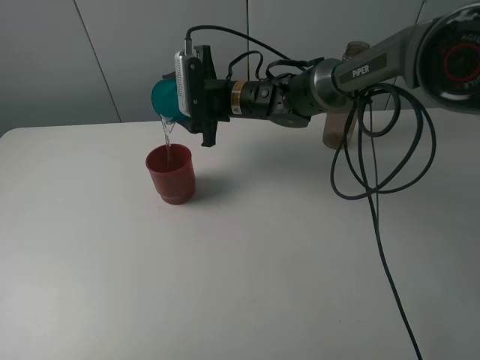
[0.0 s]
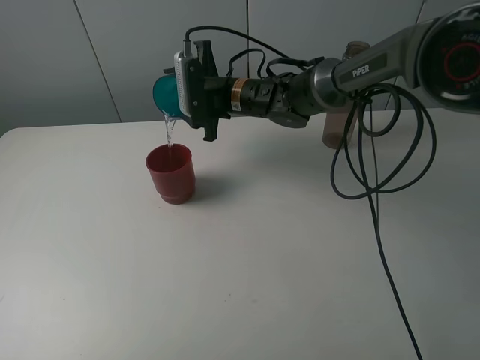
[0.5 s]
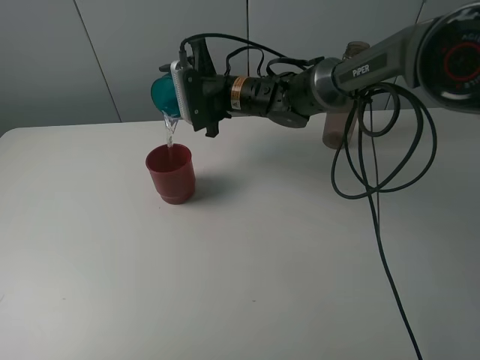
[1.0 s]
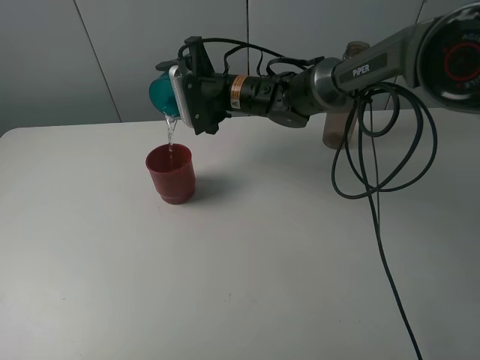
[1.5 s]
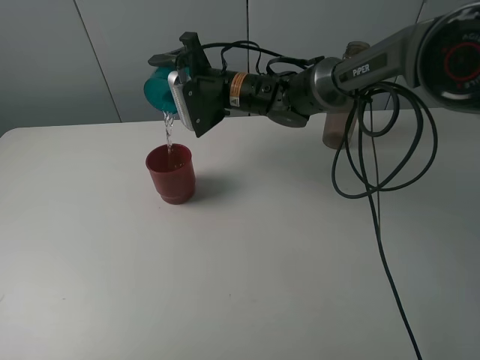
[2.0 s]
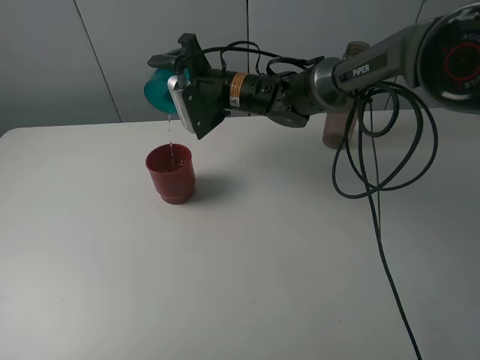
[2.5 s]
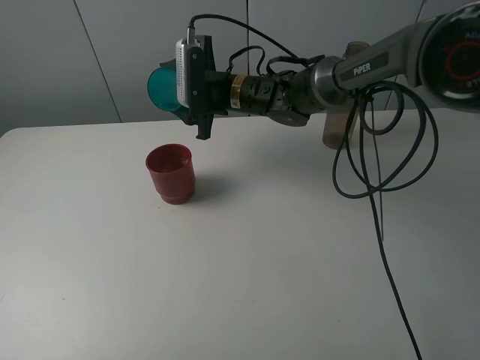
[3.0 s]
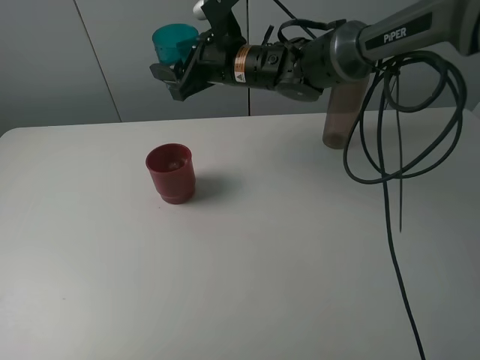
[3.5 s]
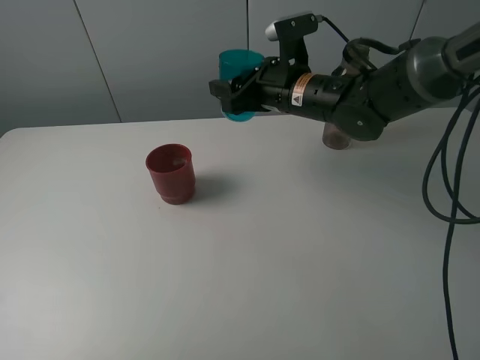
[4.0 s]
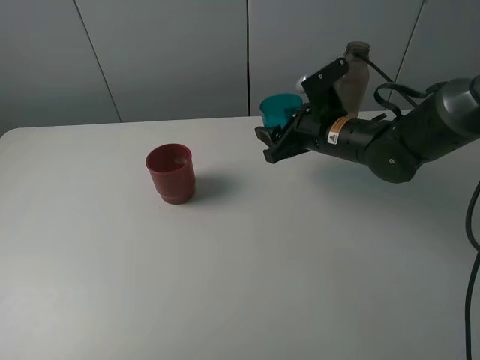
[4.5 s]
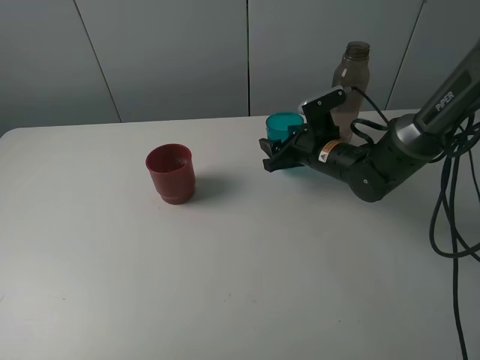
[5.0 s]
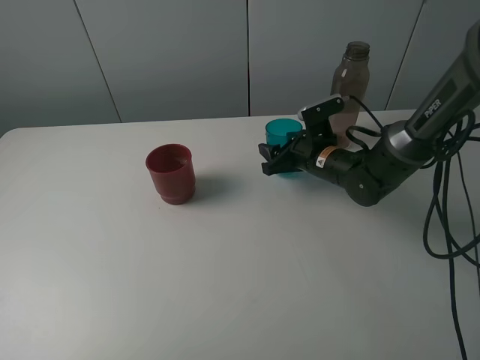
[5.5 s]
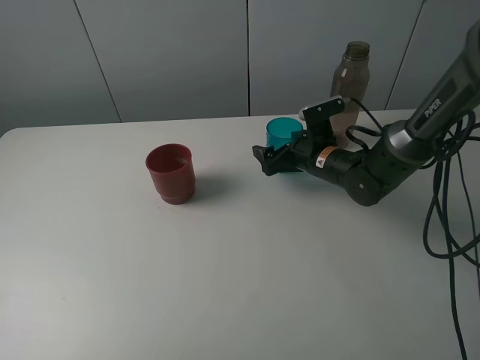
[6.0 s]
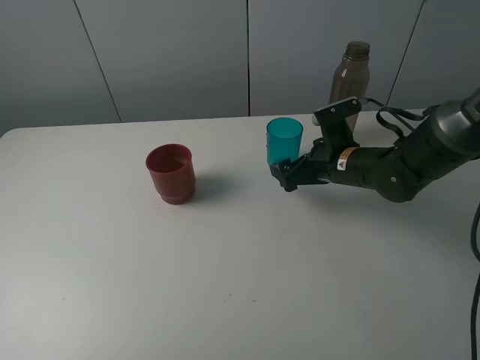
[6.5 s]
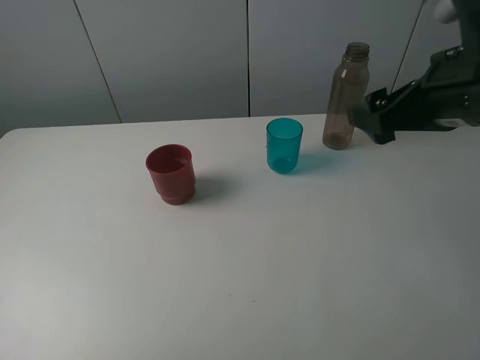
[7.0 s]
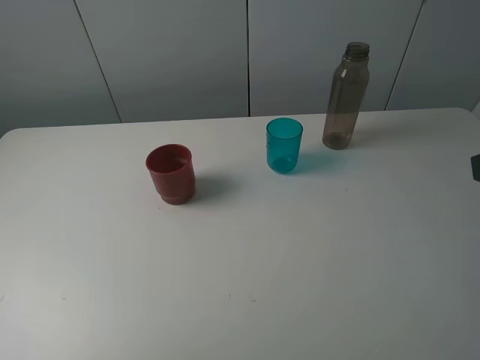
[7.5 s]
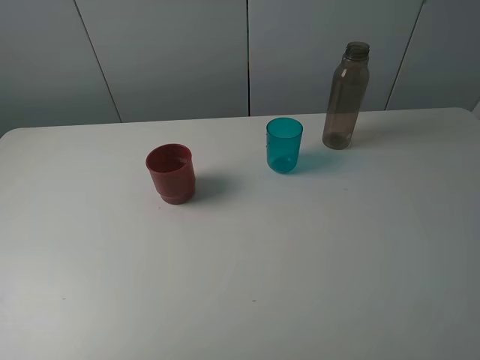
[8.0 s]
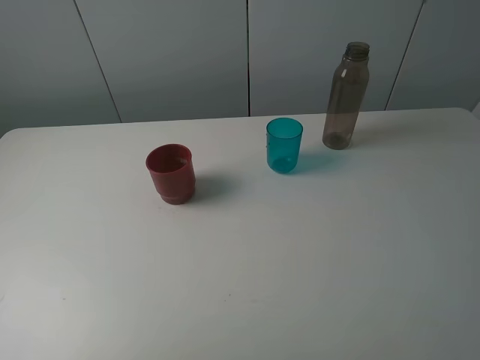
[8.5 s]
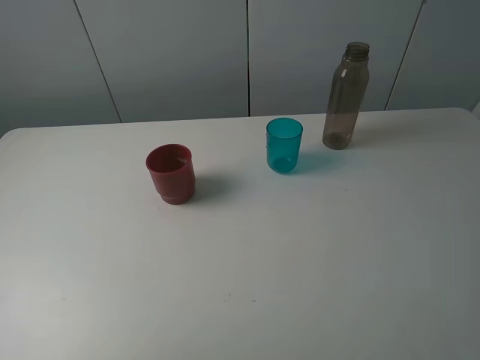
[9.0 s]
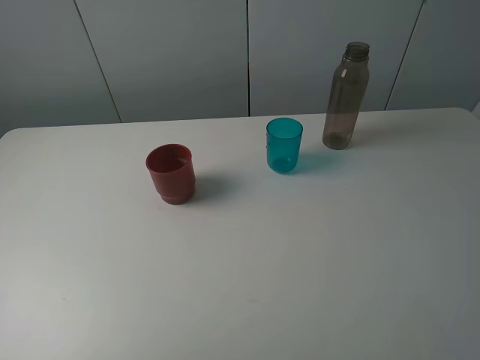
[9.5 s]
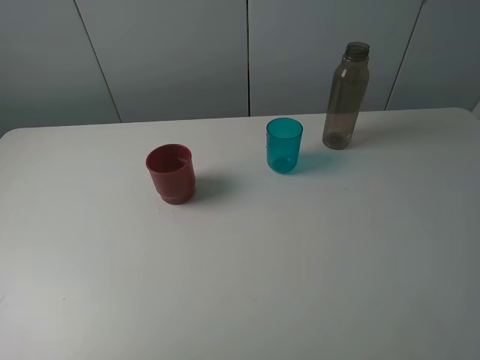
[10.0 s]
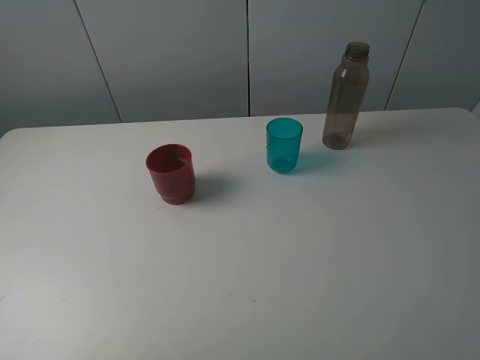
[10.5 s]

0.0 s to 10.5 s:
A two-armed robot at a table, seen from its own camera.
Task of the whole recording: pick up the bottle and pour water into the cup, then pick up the cup containing water and pour it into another cup.
Step, 0.0 to 2.5 s: Pour water from blue cup to red cup with the right gripper.
Step, 3.0 to 6.0 s: Place the blue cup with the right gripper.
2.0 to 4.0 s: The right gripper is displaced to the right and backward by about 10 cm.
4.0 to 6.5 s: The right gripper is displaced downward and to the right by some 10 cm, and opens up.
6.5 to 8.5 s: The right gripper travels backward, upward and to the right by roughly 40 cm.

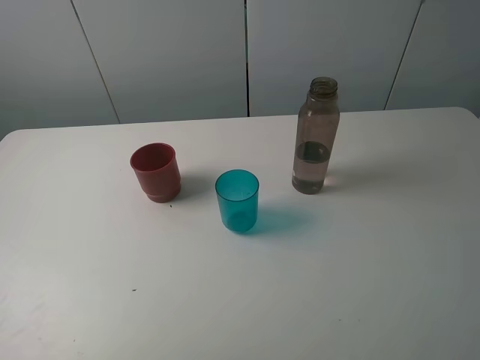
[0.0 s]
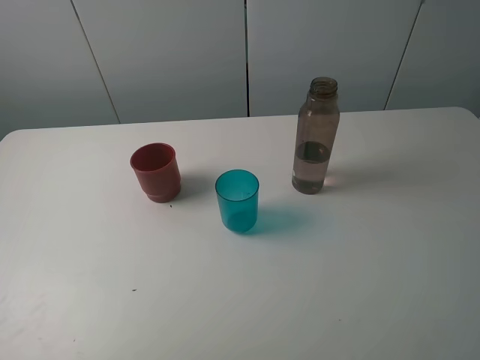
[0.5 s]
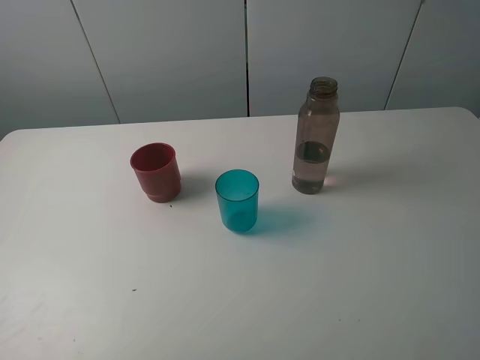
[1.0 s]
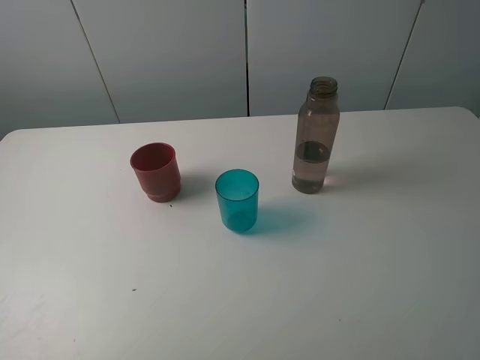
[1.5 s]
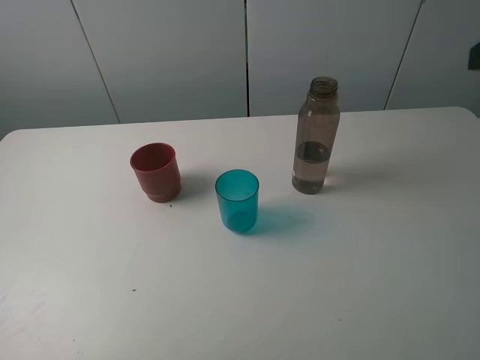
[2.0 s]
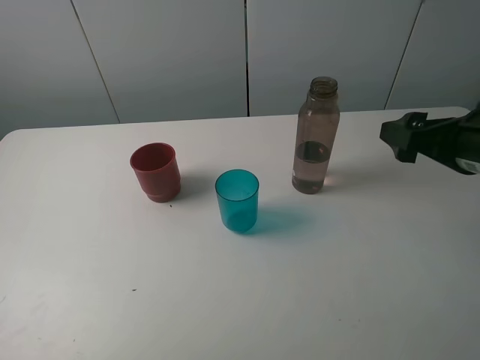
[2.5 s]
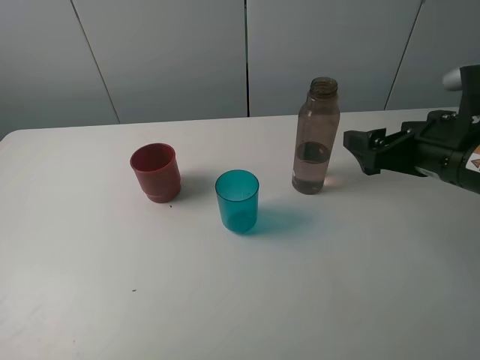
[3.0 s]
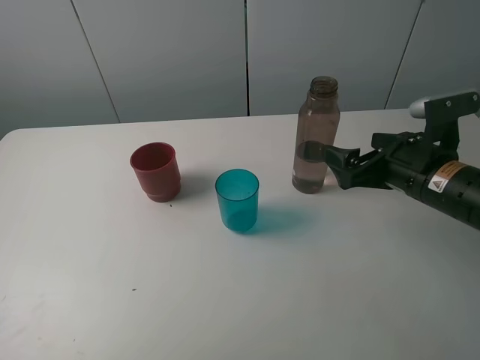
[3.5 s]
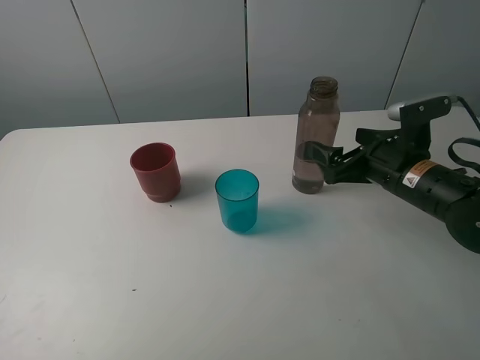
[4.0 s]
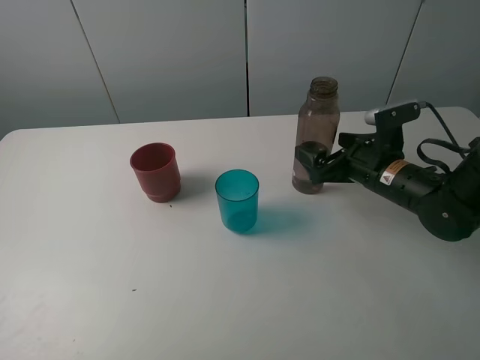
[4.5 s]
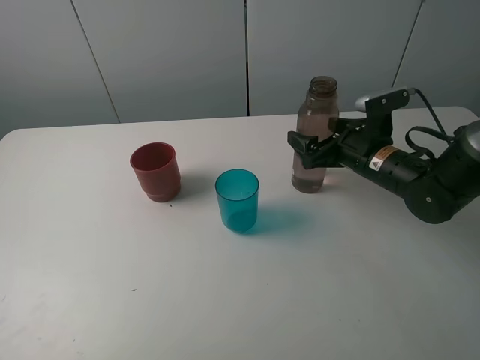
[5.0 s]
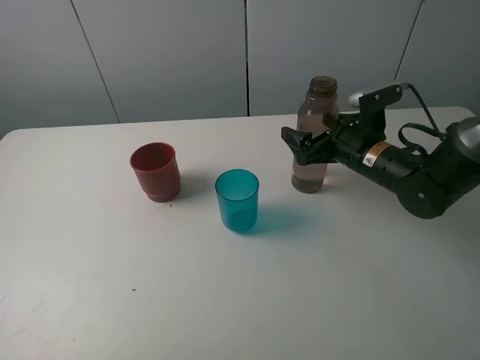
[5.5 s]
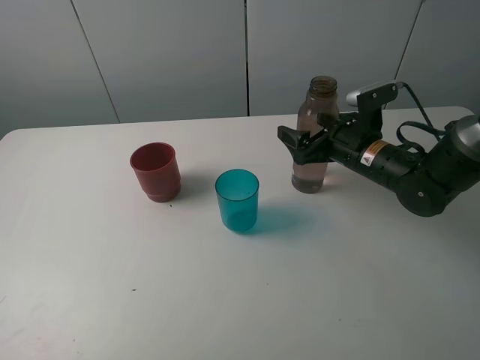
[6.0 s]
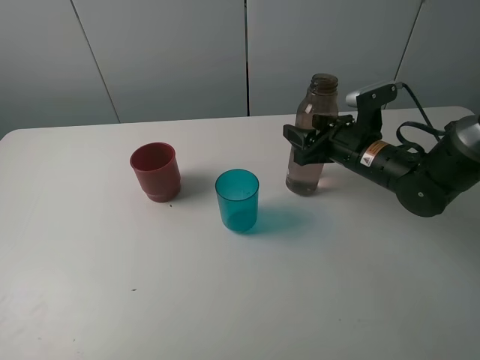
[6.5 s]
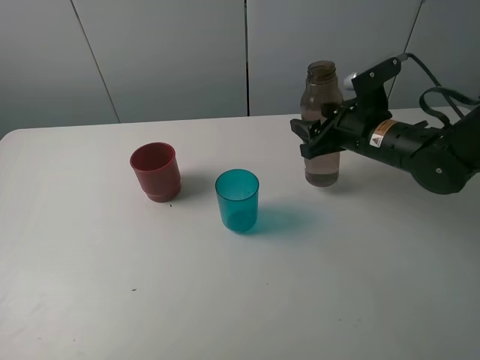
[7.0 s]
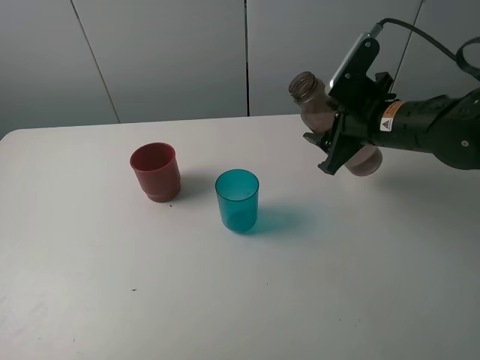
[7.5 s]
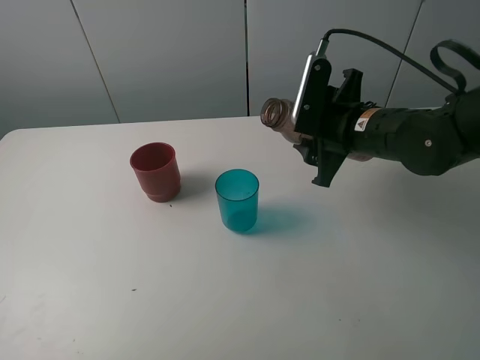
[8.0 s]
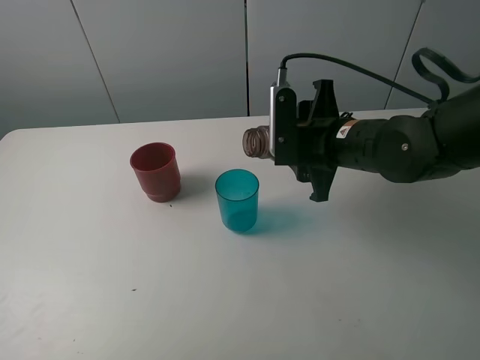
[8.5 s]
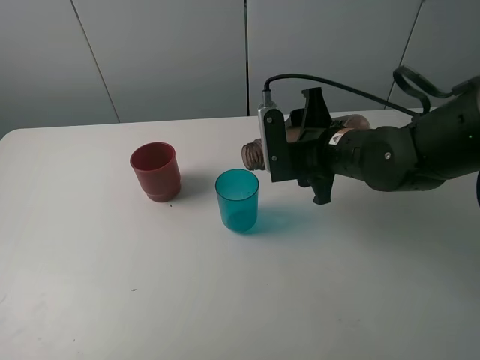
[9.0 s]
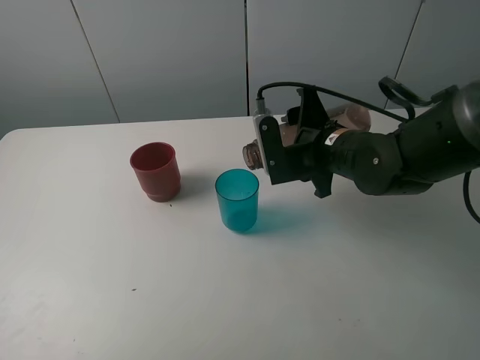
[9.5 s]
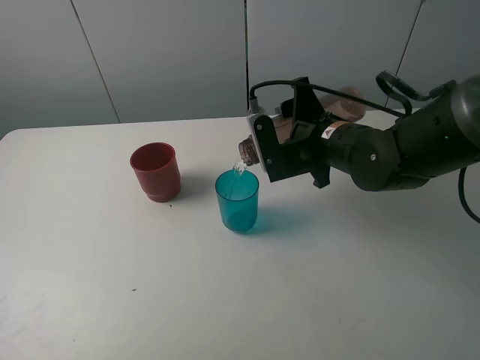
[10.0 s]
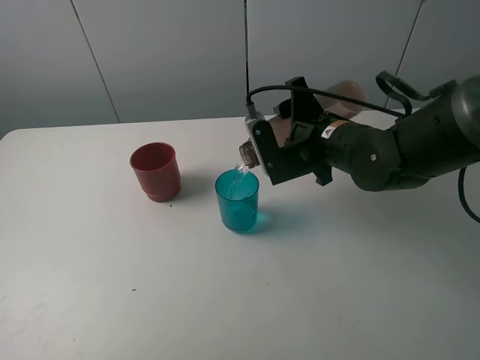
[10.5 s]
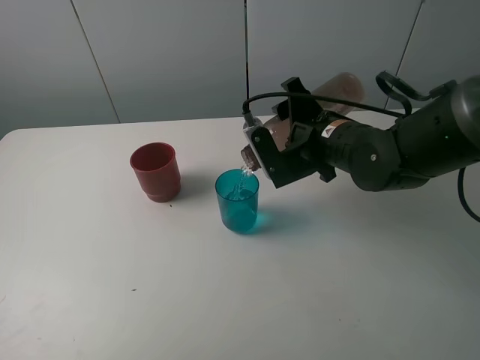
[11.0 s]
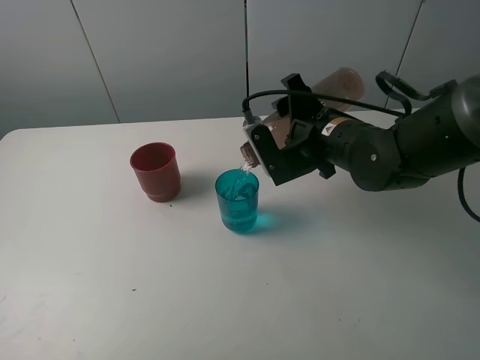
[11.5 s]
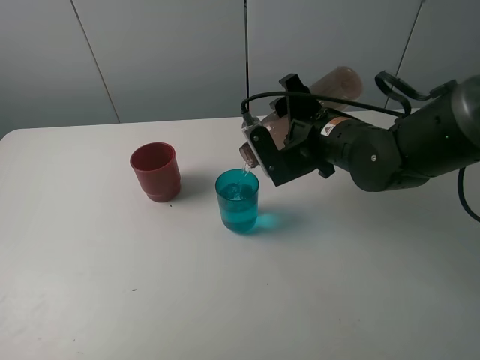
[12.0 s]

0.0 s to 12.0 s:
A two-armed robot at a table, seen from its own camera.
Task of the whole recording: pick up the bottle and pour water into the cup, then pick up the cup containing water and pour it into another cup.
Step, 0.0 to 6.0 s: Grasp the brown bottle with the right gripper.
2.0 to 4.0 s: The right gripper heads downward, covering approximately 25 cm.
4.0 to 6.0 s: The right gripper travels forward by roughly 5 cm, and closes.
6.0 to 8.0 s: The right gripper shifts about 5 cm upward, and closes up.
10.0 to 12.0 s: The grippers move only a little.

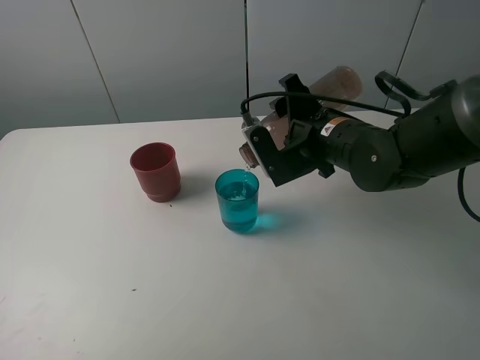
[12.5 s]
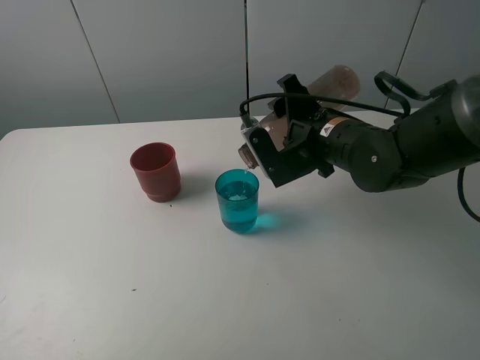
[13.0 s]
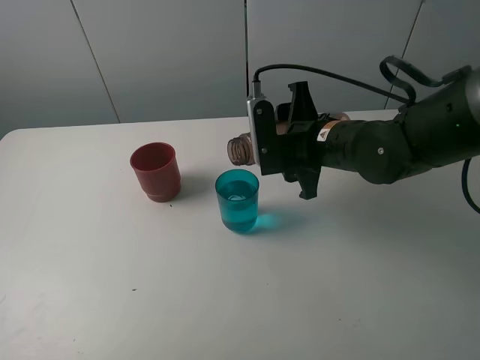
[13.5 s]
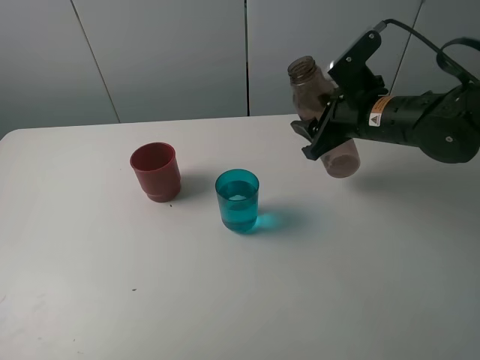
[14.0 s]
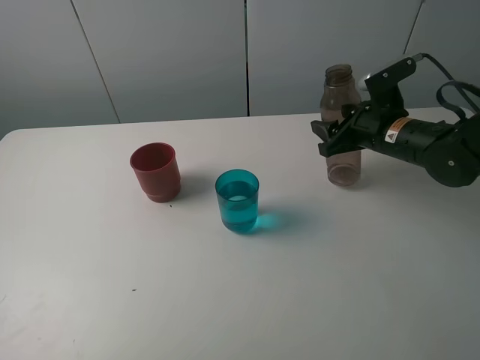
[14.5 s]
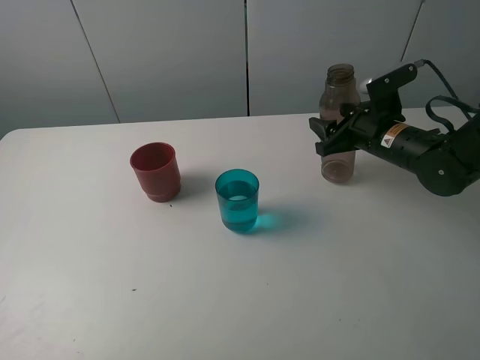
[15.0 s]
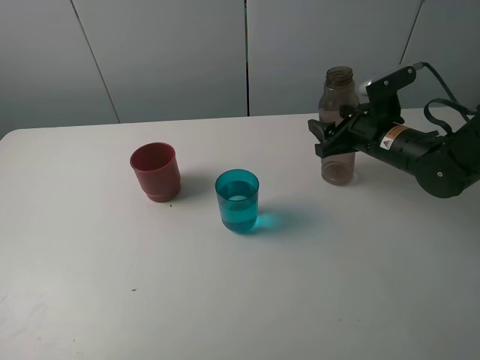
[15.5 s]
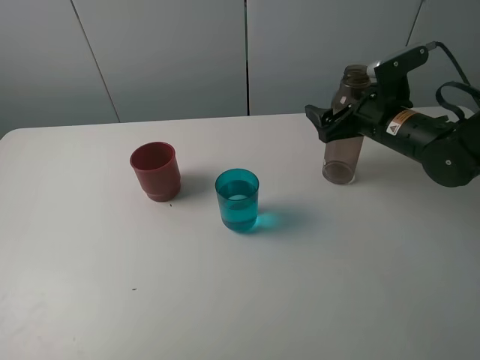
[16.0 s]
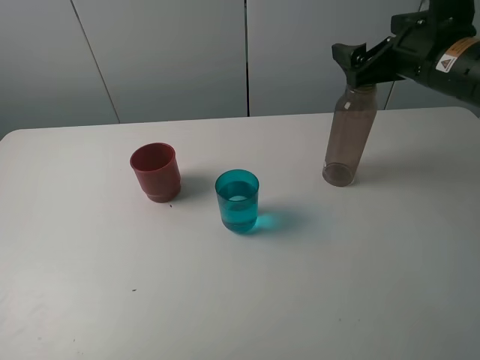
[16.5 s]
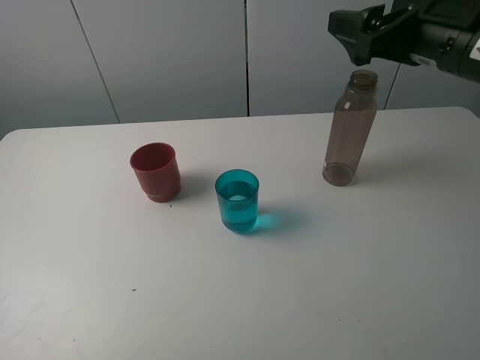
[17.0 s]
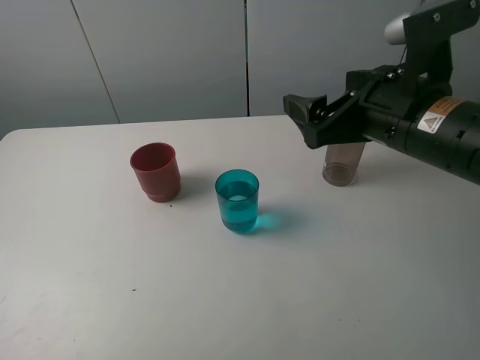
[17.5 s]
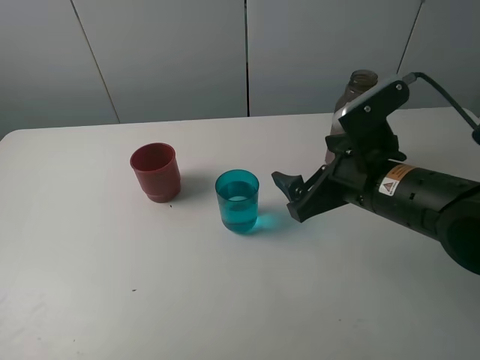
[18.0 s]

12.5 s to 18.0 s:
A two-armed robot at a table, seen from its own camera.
Task of the whole recording: pick up the bottle and pour water into the cup, then pick up the cup containing water and pour it into another cup.
Step, 14.0 to 15.5 s: Place the brown bottle with the right gripper.
12.5 to 14.5 s: The right gripper moves to the right, some 10 cm.
14.5 to 16.0 s: The right gripper opens its fingers.
16.0 to 18.0 s: The right gripper goes about 15 cm backward and to the left.
